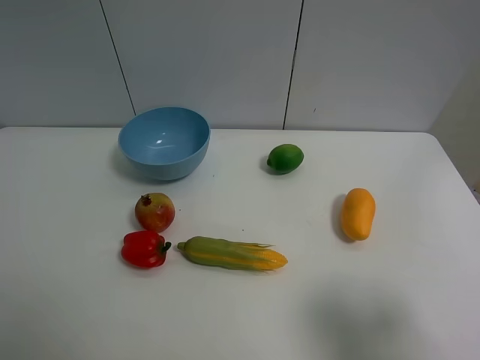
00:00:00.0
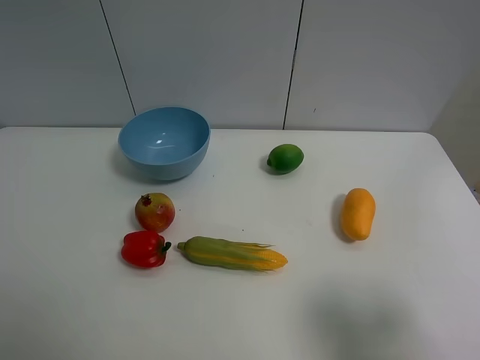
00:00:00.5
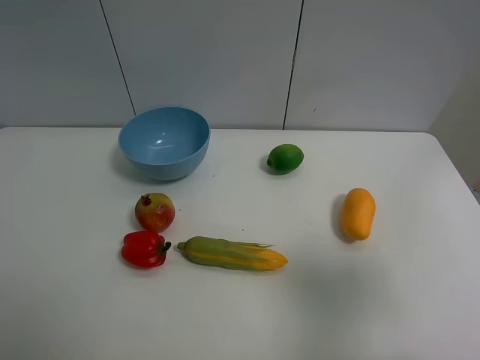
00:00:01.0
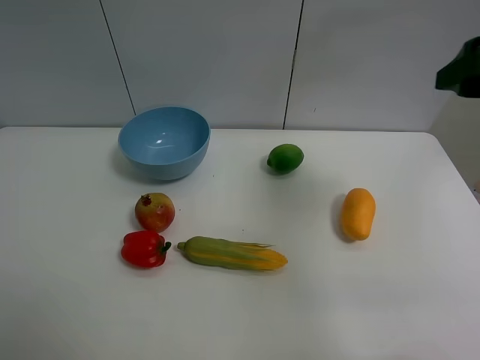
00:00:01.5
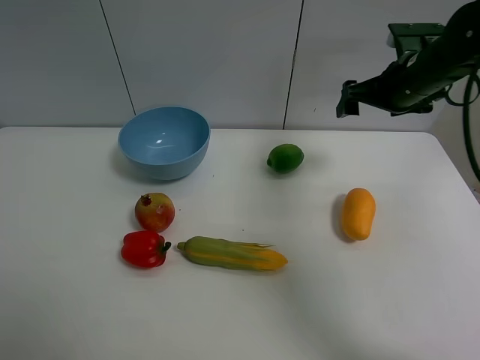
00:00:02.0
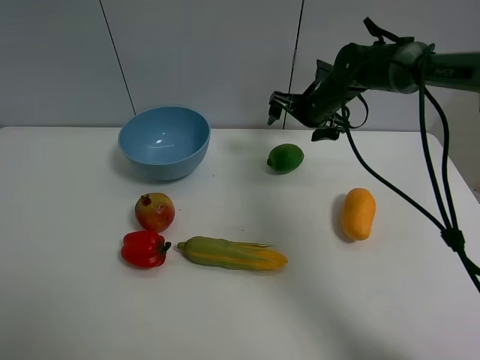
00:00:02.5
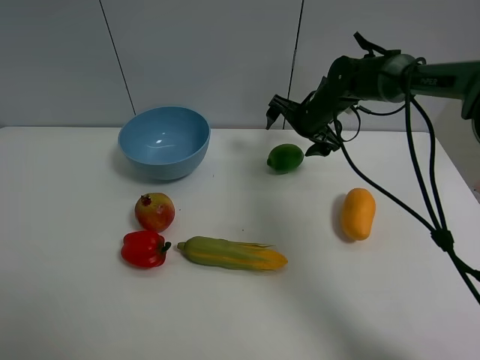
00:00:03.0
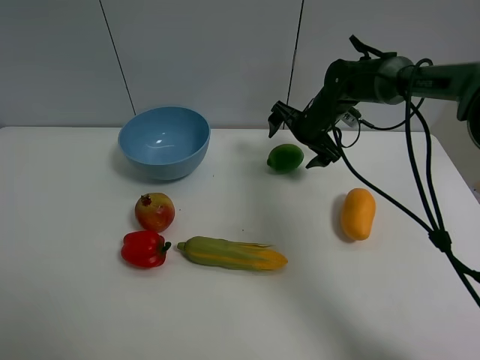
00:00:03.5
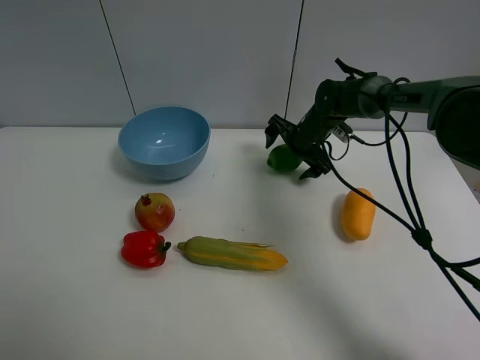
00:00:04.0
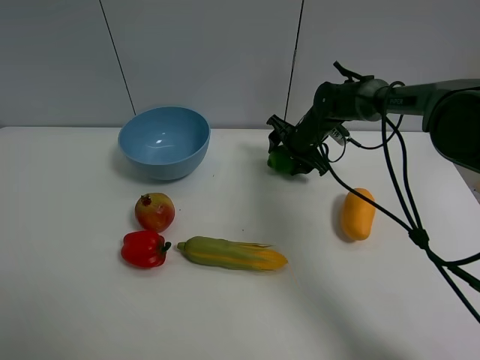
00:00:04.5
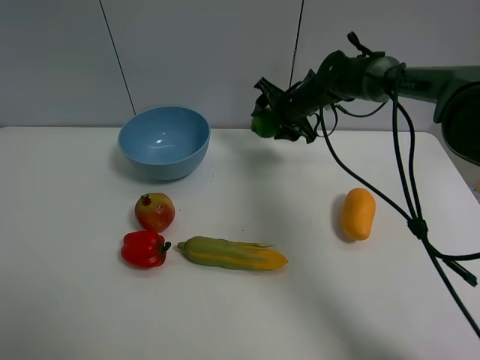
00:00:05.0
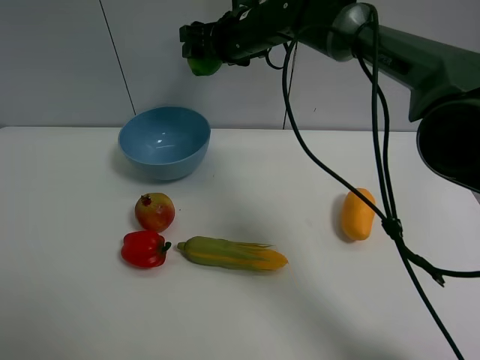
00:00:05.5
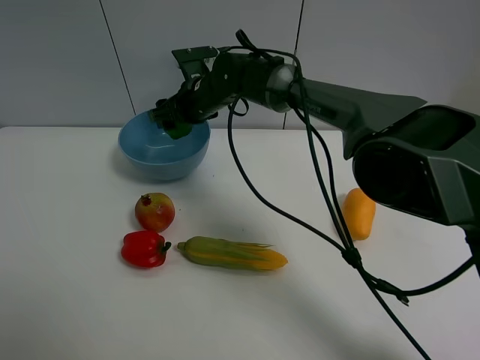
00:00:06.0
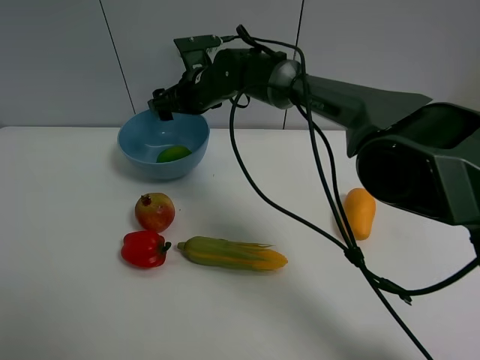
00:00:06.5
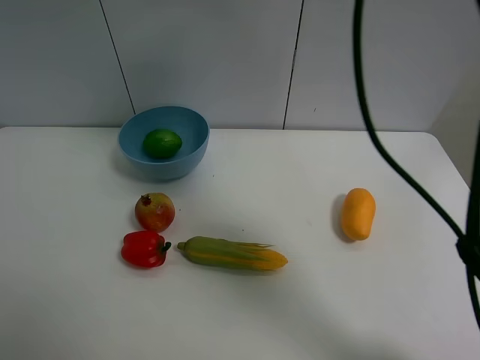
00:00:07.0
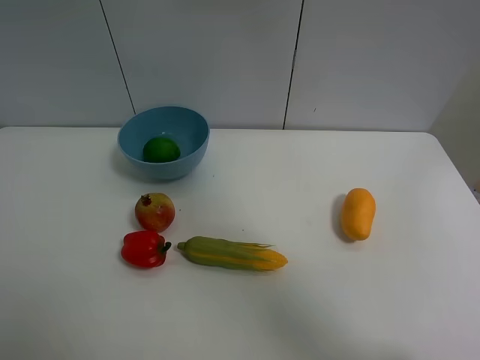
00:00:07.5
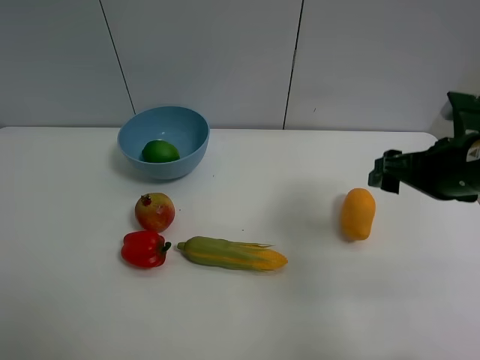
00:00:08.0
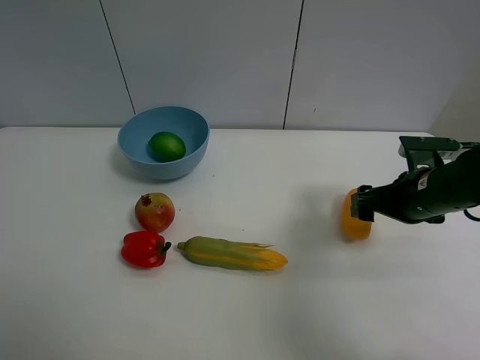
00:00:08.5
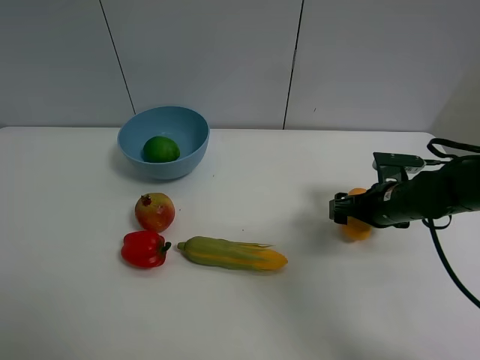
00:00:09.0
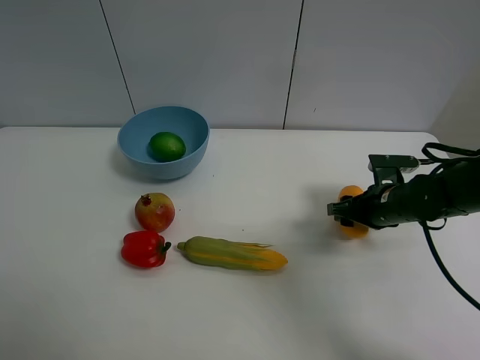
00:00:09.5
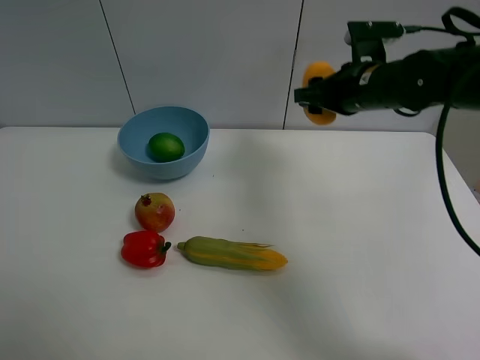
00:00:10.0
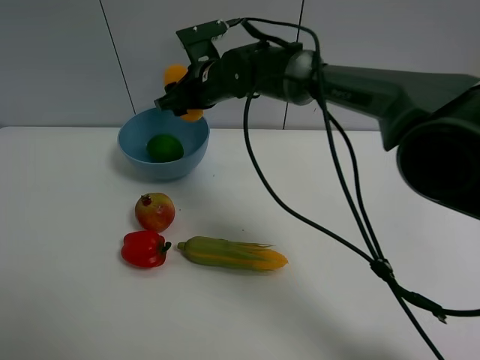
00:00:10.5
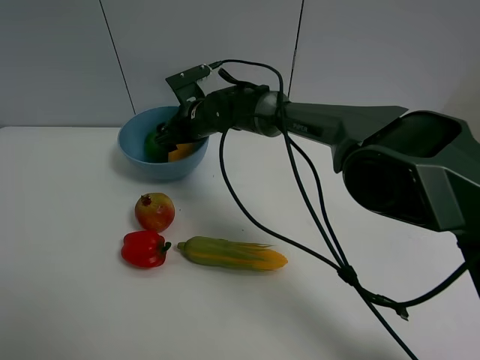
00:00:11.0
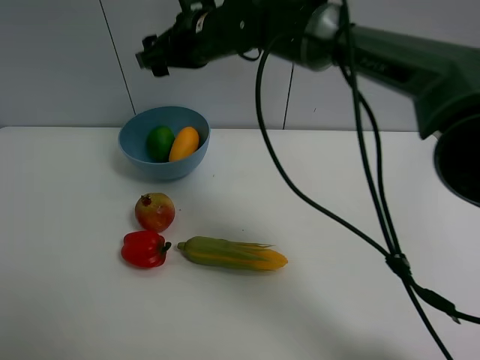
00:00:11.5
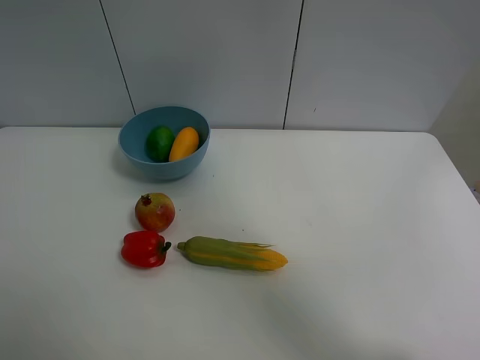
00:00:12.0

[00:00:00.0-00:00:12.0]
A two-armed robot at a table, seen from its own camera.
Task of the whole recording: Put the three fruits on the table into a bowl.
Step, 00:00:00.0 to 00:00:04.5: Grasp the green lemon with right gripper.
Step, 00:00:05.0 to 00:00:06.0: Place the green lemon in the blue bowl with right gripper.
Step, 00:00:06.5 to 00:00:09.0: Grasp the mango with right gripper.
Step, 00:00:09.5 to 00:00:11.0: Place the mango in the blue bowl with right gripper.
00:00:00.0 to 00:00:02.0: The right gripper goes roughly 40 cm forward.
00:00:02.0 to 00:00:04.0: The right gripper moves downward, to the left and forward, roughly 20 cm.
00:00:04.0 to 00:00:06.0: The right gripper goes some 20 cm to the left and upward, and closes.
00:00:06.0 to 00:00:08.0: The right gripper heads to the right and backward, covering approximately 40 cm.
00:00:08.0 to 00:00:10.0: The right gripper heads forward and to the left, covering roughly 15 cm, travels downward and back again, approximately 15 cm each way, and closes its fingers.
00:00:10.0 to 00:00:12.0: The right gripper goes about 25 cm upward, and opens.

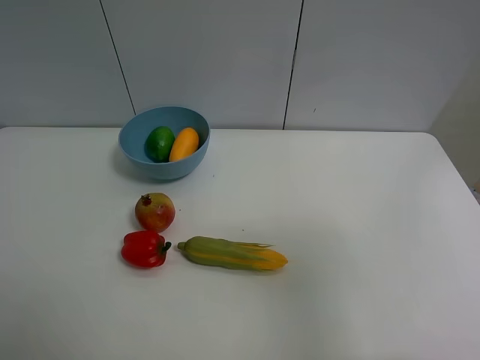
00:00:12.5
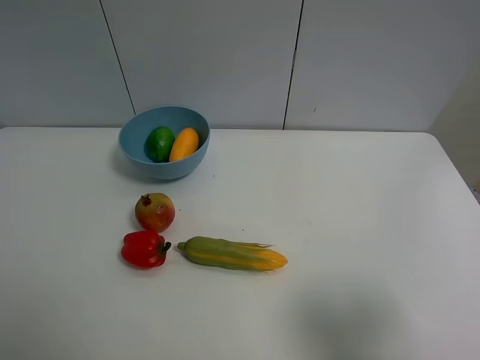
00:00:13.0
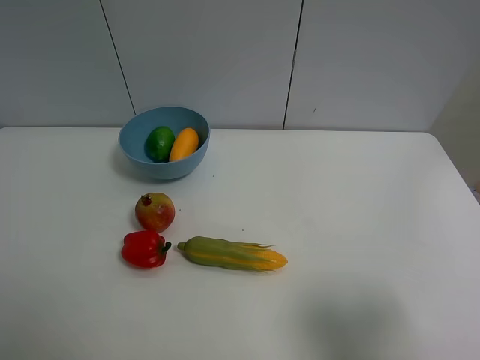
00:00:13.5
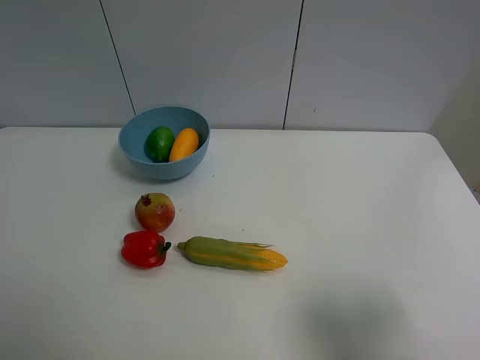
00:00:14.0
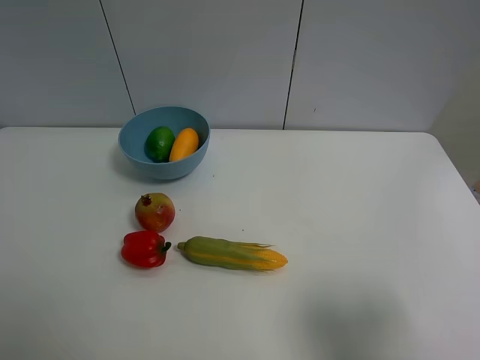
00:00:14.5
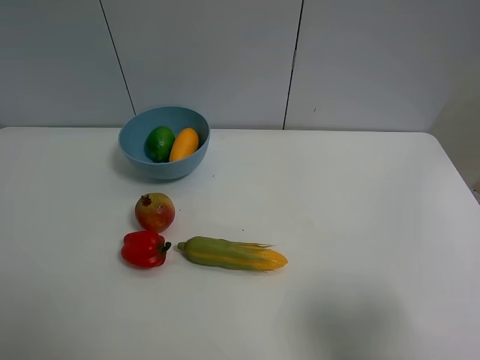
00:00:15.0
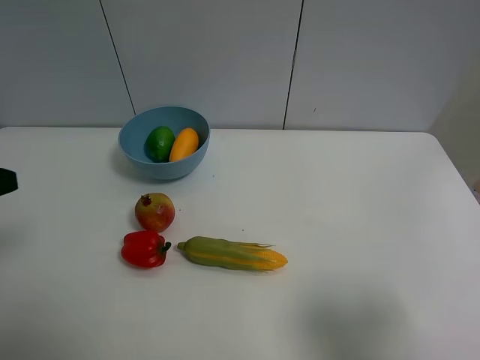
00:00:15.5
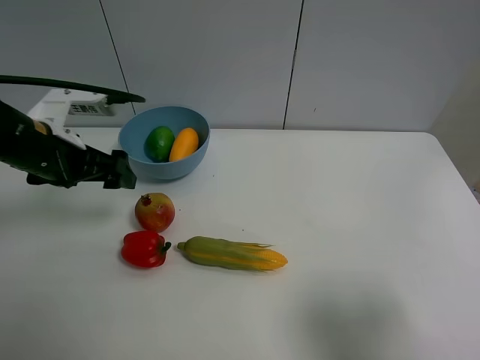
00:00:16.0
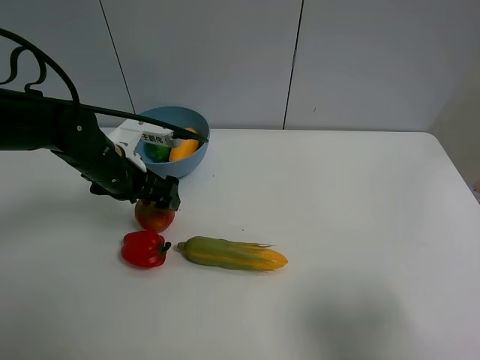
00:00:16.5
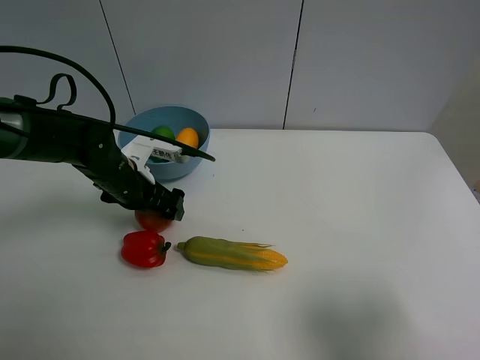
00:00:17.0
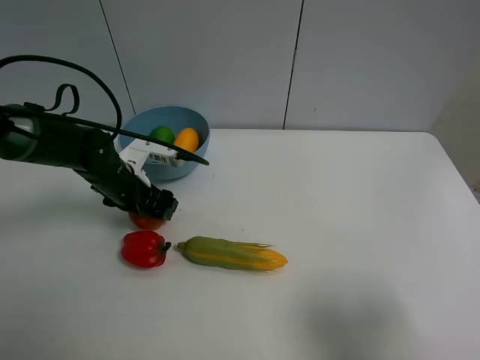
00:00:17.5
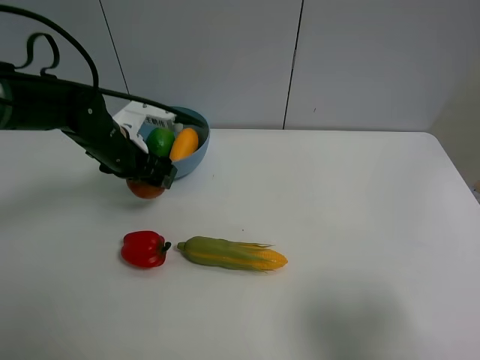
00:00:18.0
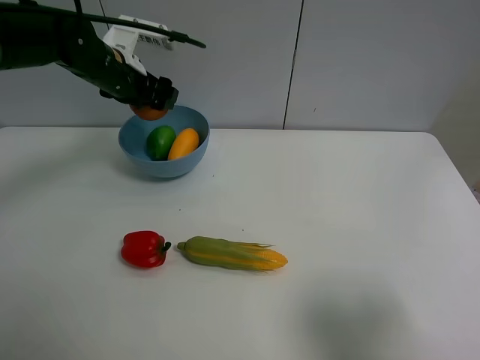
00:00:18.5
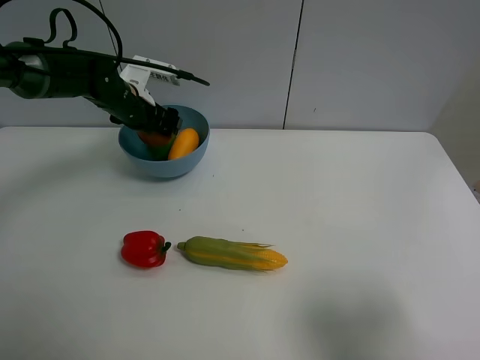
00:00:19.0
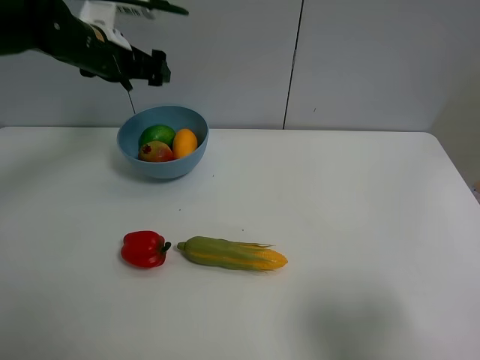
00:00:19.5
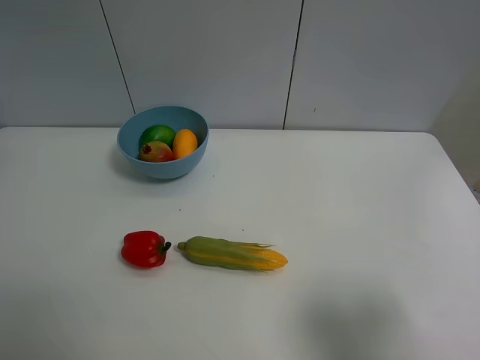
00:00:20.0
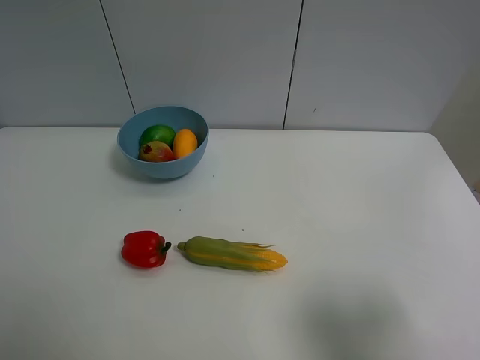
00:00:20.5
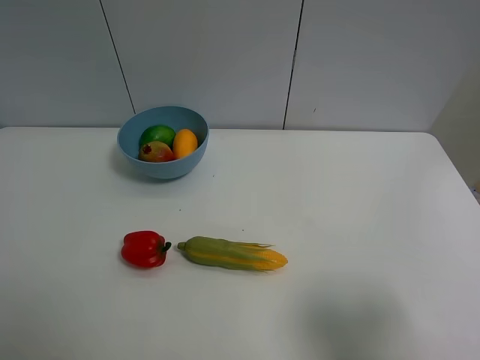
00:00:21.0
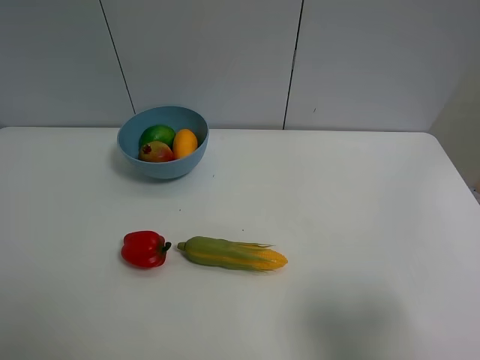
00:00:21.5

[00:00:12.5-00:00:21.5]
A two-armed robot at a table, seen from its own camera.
Task of the whole recording: Put the three fruits on the table into a bowl.
Step, 00:00:12.5 to 00:00:17.5: Grasp the pomegranate with left gripper.
Step, 00:00:18.0 to 00:00:19.0: Place the pomegranate in the blue bowl with left gripper.
00:00:12.5 to 00:00:14.5: The right gripper moves downward, about 10 cm.
00:00:14.5 to 00:00:17.0: The left gripper is displaced forward, downward and to the right by some 35 cm.
00:00:17.0 to 00:00:19.5: The left gripper goes up and down, approximately 20 cm each way, reversing 2 times, and closes, then opens again.
00:00:19.5 to 00:00:21.5: The left gripper moves backward, roughly 40 cm.
